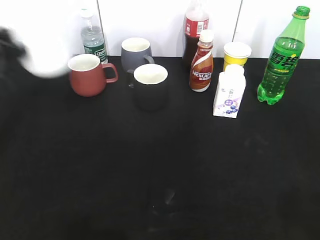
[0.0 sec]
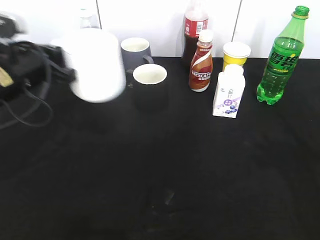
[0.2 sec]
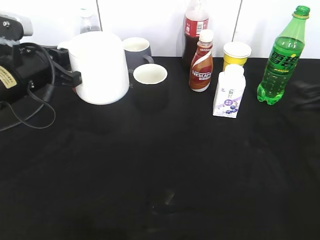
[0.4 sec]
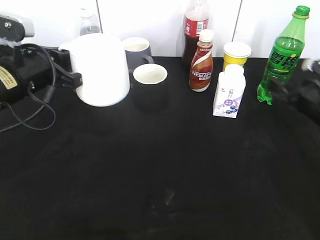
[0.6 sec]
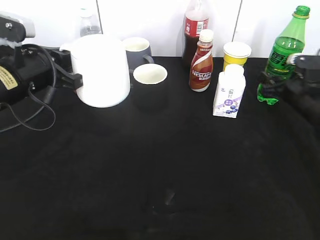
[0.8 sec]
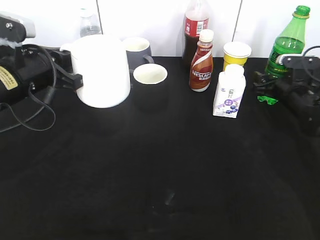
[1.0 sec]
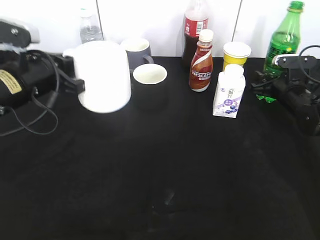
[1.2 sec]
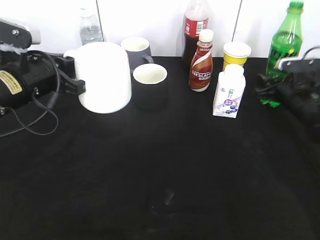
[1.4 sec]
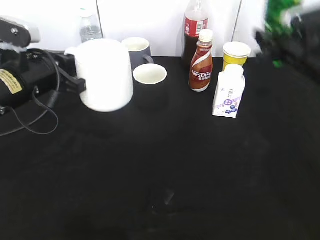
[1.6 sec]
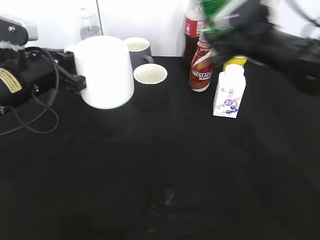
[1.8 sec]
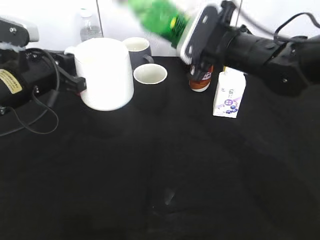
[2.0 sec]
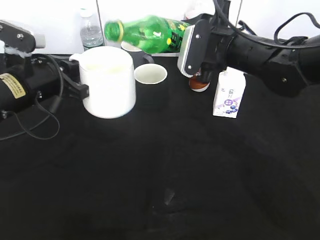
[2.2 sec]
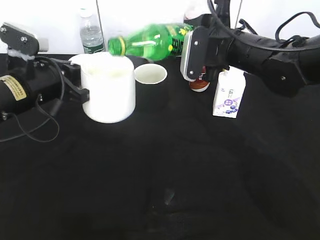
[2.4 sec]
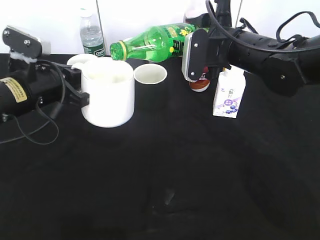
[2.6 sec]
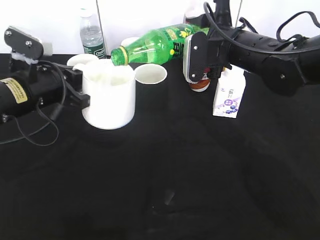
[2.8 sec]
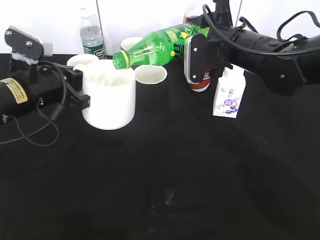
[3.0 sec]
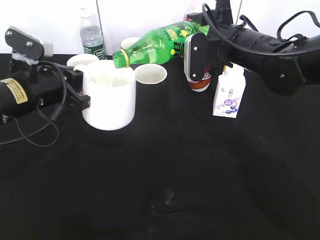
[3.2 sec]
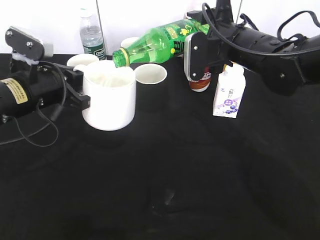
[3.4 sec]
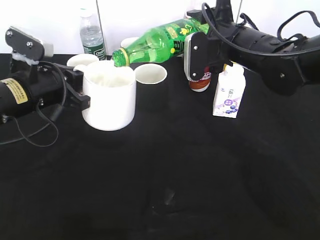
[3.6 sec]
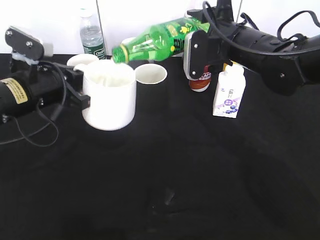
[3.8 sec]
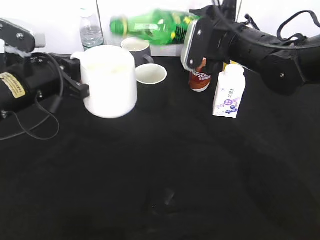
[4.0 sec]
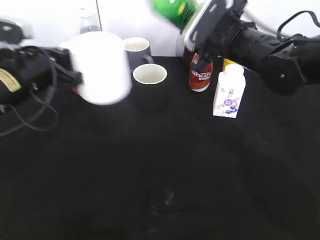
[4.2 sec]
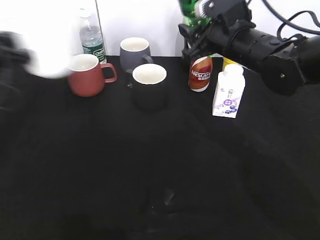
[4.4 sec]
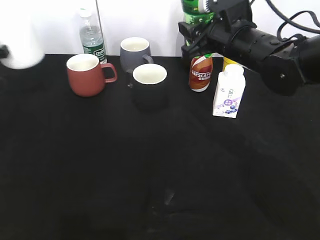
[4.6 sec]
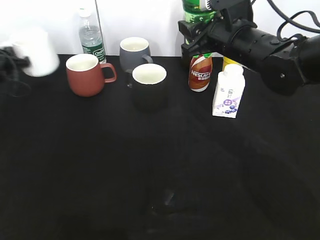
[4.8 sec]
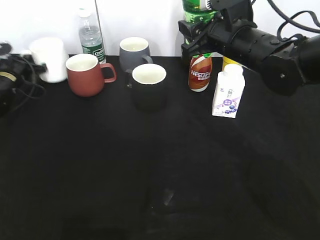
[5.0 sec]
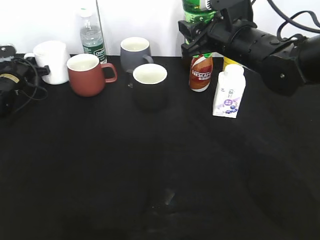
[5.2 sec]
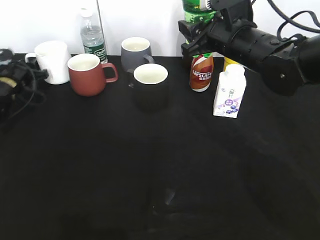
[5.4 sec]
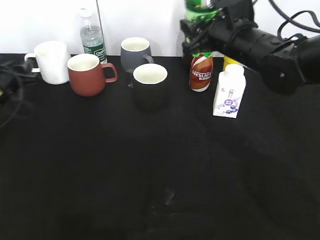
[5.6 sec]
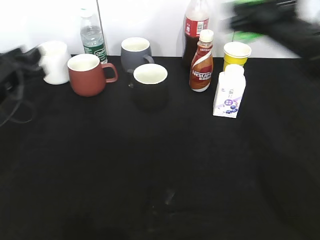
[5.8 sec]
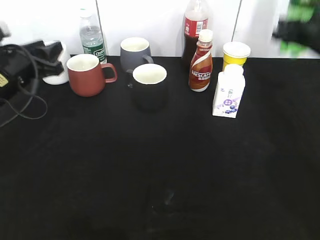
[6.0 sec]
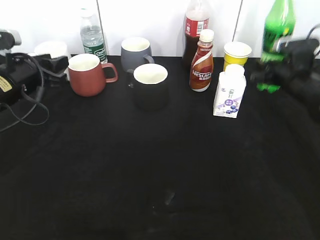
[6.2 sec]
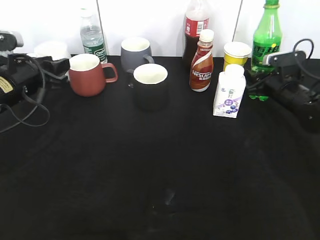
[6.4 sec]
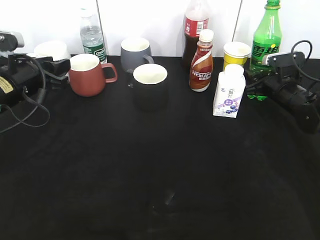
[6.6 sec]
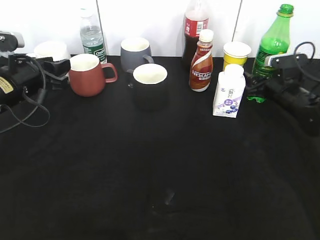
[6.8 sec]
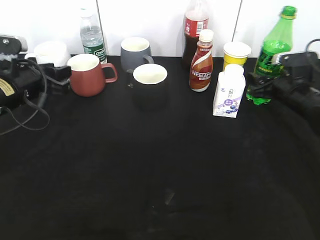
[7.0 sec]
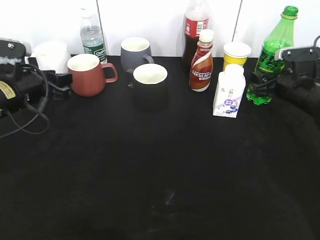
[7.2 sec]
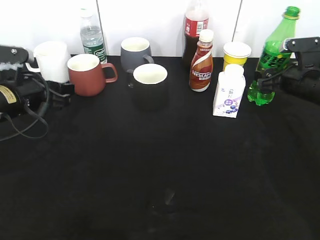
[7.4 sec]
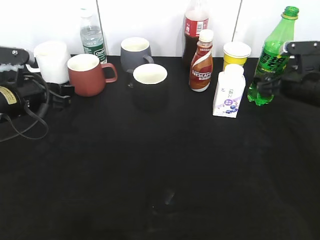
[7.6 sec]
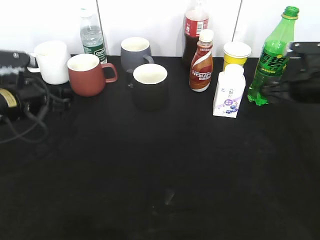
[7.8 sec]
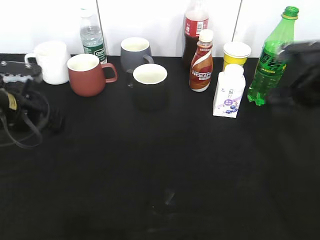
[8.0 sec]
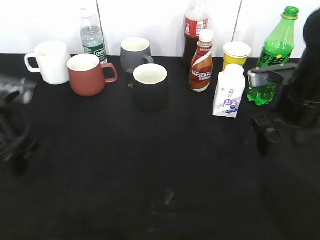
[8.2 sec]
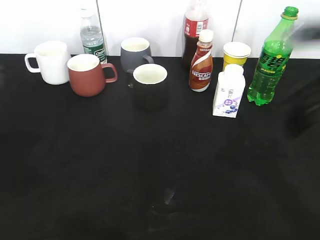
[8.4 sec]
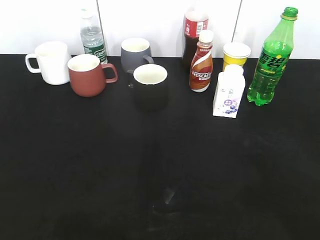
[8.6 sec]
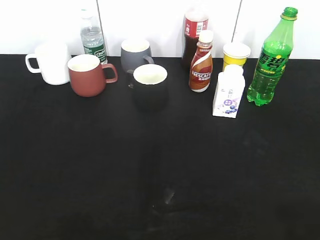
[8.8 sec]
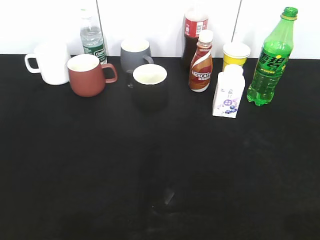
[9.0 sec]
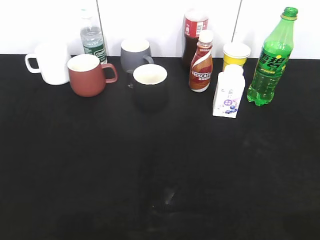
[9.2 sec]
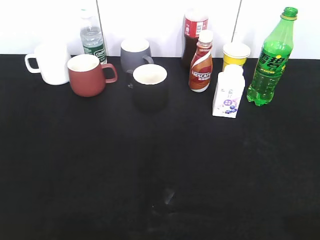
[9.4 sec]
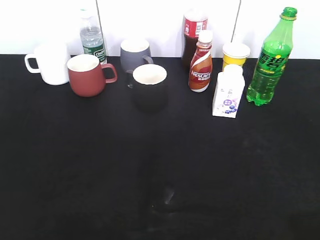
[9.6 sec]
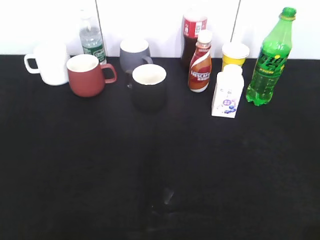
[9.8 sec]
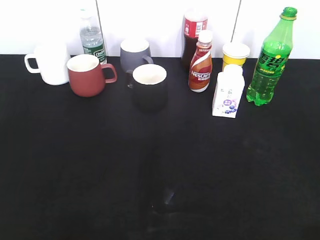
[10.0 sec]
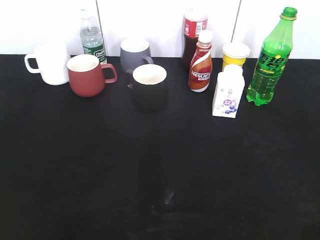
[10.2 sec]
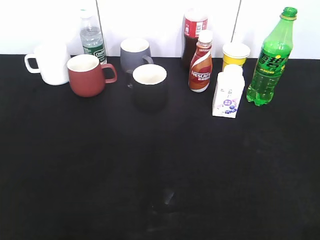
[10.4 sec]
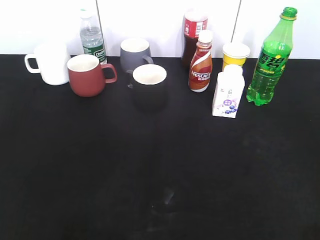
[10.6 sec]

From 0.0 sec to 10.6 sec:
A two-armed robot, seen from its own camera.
Step, from 0.4 sec to 1.2 sec: Grasp the bottle with sprite with right gripper.
Step, from 4.2 sec to 5.4 sec: Place the white cup on the table with left gripper.
Step, from 5.8 sec to 7.6 sec: Place the sprite bottle on the table with right gripper.
From 0.0 sec to 1.6 sec: The right gripper shifts roughly 30 cm forward, and closes up. The left gripper shifts some 10 cm to the right.
From 1.6 sec to 3.0 sec: The right gripper travels to the left by roughly 15 cm.
From 3.0 sec to 4.6 sec: The left gripper is displaced to the left and forward by approximately 20 cm.
From 4.6 sec to 6.0 sec: The left gripper shifts some 15 cm to the right and backward, and opens its fingers. Meanwhile the right gripper travels to the right by some 15 cm.
From 6.0 sec to 7.6 sec: The right gripper goes roughly 5 cm downward, and opens.
From 7.6 sec to 9.0 sec: Both grippers move backward and upward, some 35 cm.

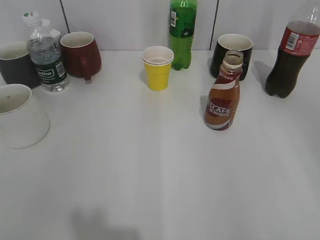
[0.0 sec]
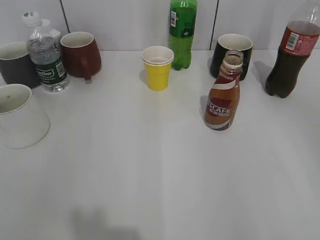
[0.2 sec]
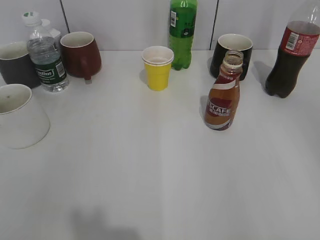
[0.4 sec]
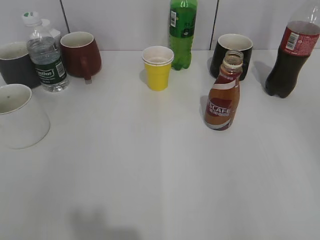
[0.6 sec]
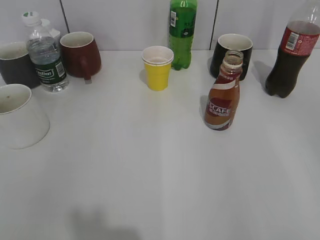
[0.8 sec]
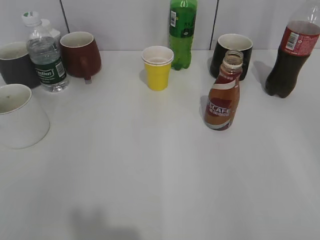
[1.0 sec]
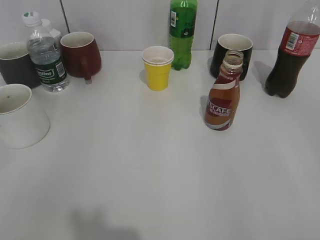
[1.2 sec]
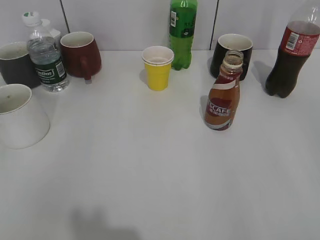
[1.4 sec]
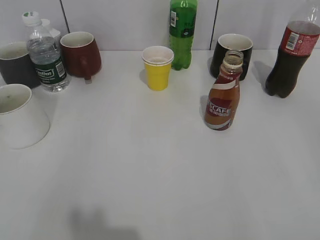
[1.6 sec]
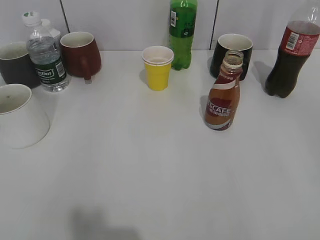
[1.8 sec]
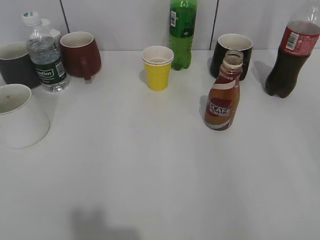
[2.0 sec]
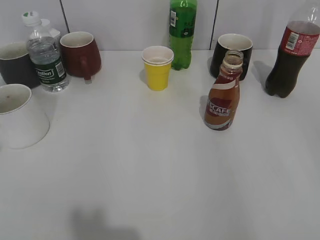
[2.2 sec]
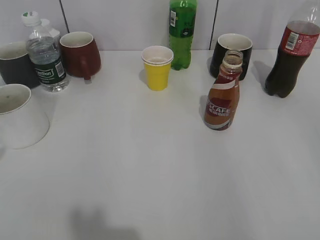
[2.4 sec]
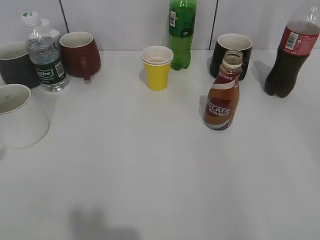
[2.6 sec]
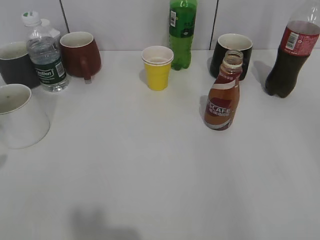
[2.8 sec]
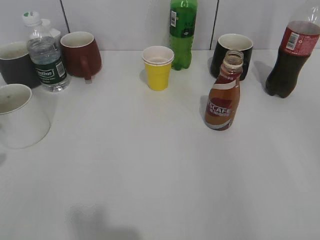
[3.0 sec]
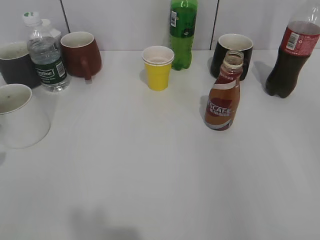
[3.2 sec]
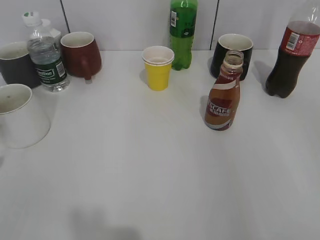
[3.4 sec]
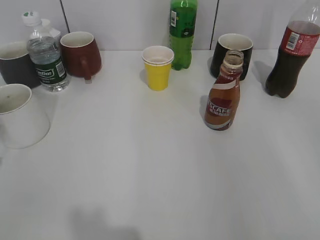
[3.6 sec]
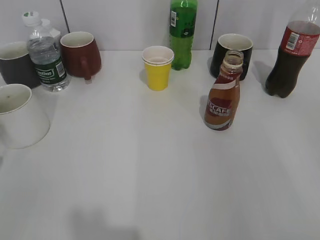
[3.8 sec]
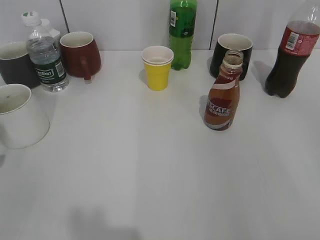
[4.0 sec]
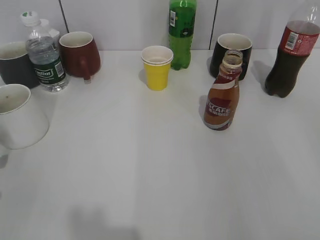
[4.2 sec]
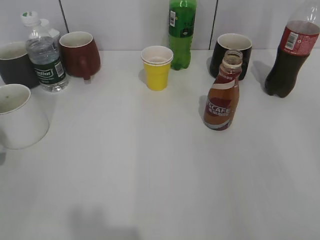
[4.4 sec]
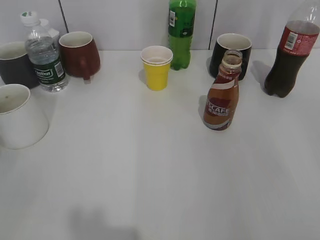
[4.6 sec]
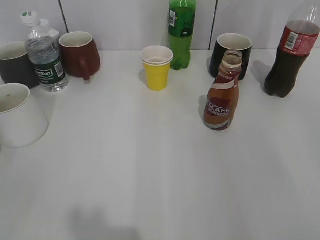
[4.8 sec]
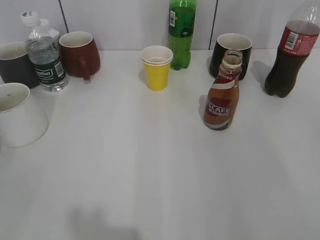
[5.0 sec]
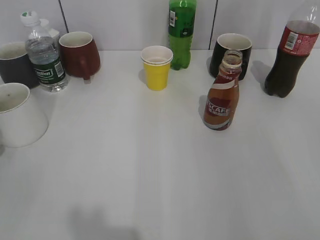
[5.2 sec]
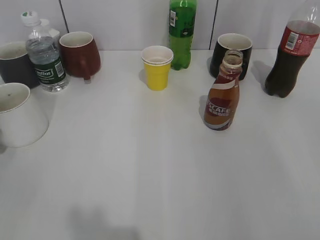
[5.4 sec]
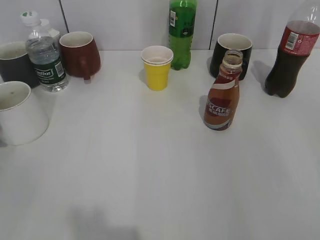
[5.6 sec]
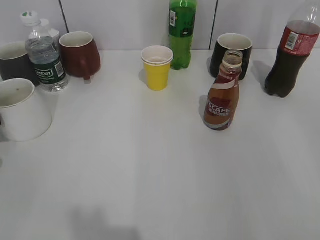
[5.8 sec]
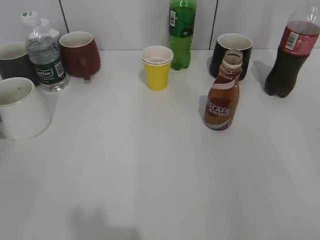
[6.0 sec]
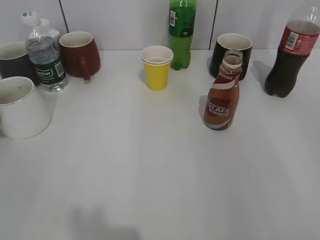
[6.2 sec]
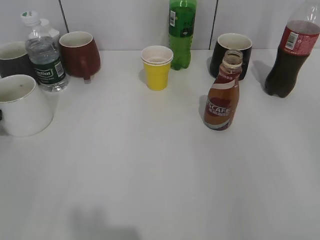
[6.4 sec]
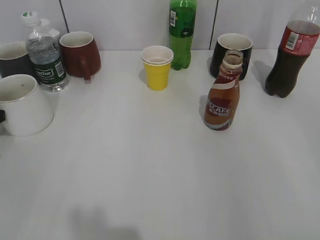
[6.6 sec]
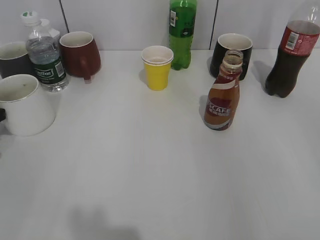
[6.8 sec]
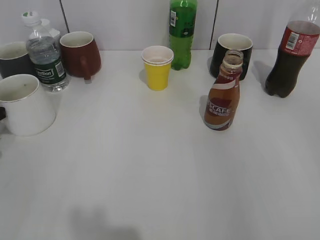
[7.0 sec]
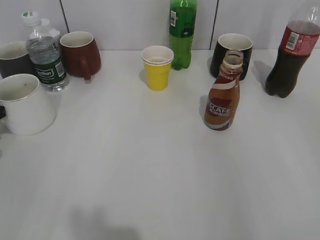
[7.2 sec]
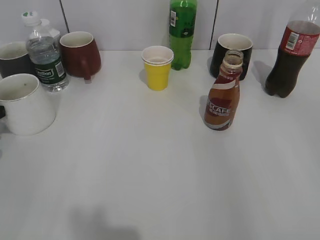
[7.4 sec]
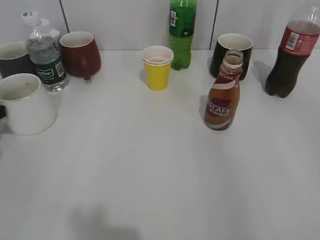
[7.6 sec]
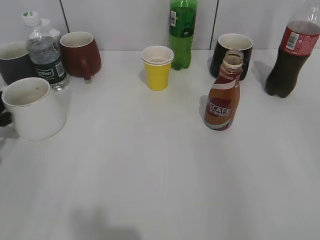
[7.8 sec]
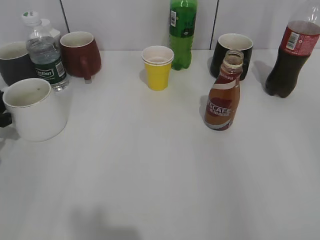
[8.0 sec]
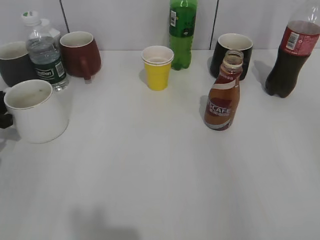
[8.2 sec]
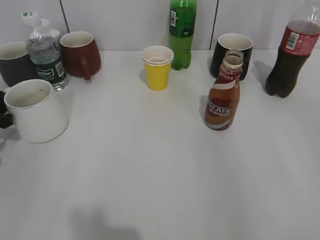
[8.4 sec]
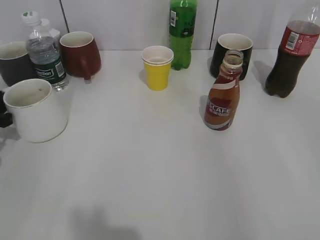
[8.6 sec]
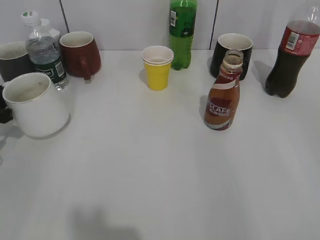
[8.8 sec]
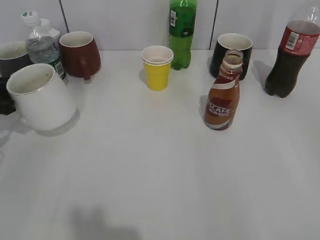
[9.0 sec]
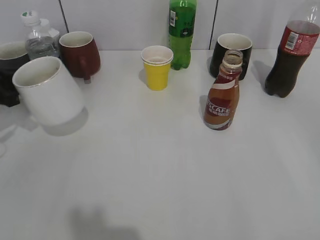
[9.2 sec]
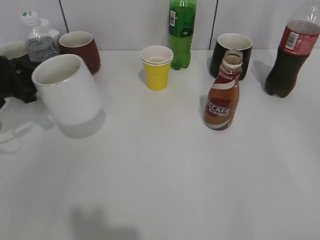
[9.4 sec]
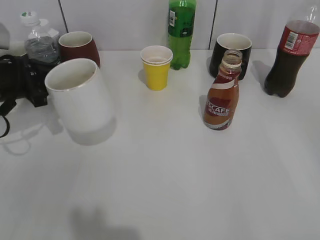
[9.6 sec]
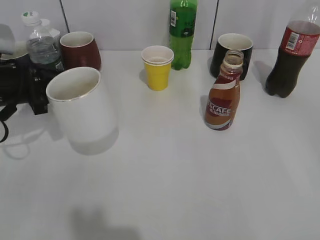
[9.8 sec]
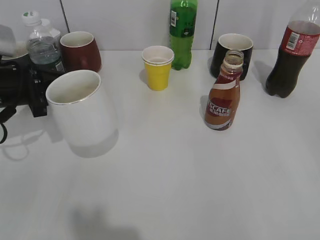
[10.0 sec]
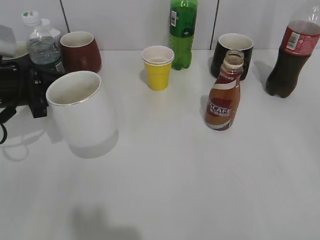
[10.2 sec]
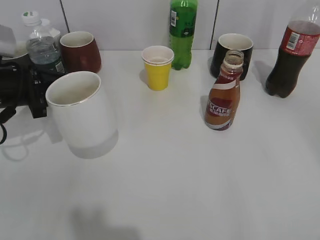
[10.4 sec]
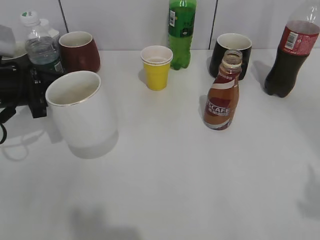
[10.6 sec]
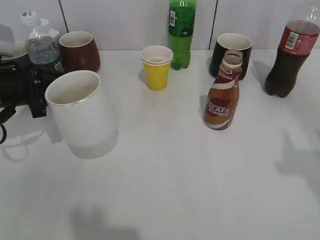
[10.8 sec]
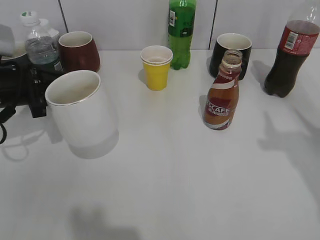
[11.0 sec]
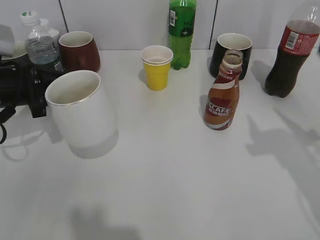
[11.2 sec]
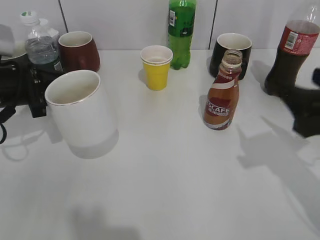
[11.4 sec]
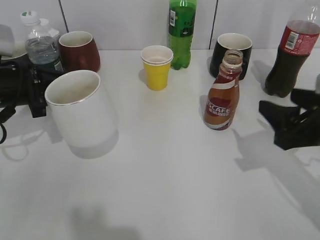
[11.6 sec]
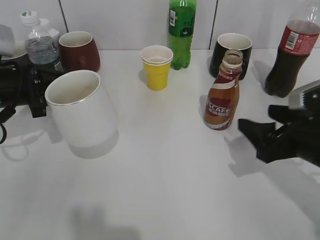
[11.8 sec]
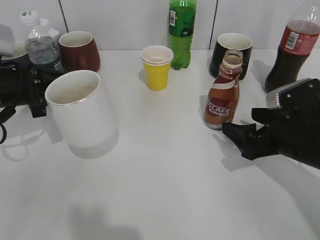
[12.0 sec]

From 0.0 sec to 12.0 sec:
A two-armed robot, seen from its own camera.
Step, from 4.0 sec to 8.4 sec: Grasp the white cup with left gripper.
Step, from 8.6 sec to 10.2 sec: Lift the white cup with left gripper.
From 3.0 sec to 4.4 sec: The left gripper is displaced downward by roughly 10 cm, and opens its fingers.
From 4.4 sec to 6.0 sec: The left gripper moves forward, roughly 10 cm.
From 6.0 sec to 7.6 sec: The left gripper closes up.
From 7.6 sec to 9.0 sec: There are only small adjustments of the grippers.
From 9.0 sec to 10.4 sec: The left gripper heads to the right, covering some 10 cm.
From 10.4 sec to 12.0 sec: The right gripper moves forward, downward and to the left, approximately 30 cm, and opens its fingers.
